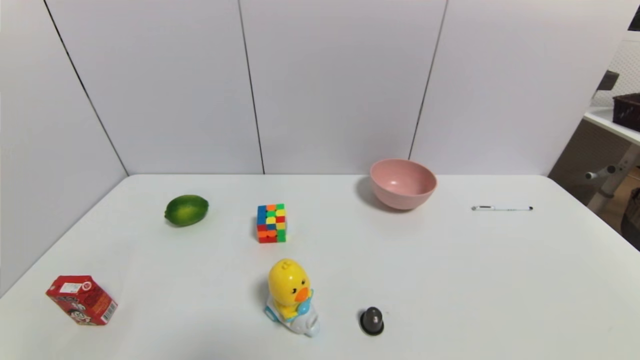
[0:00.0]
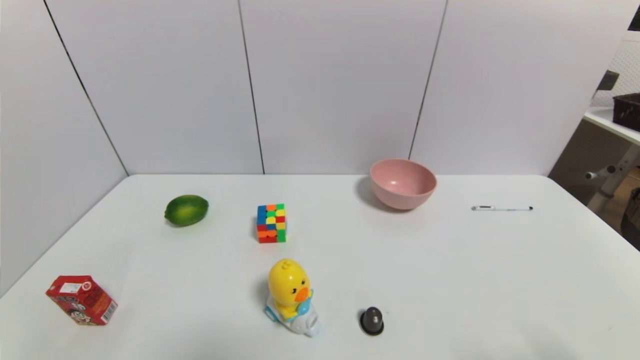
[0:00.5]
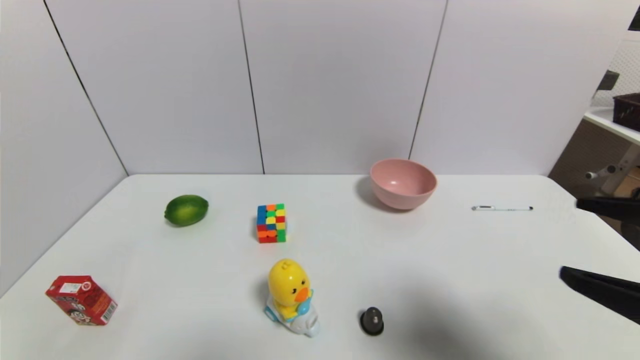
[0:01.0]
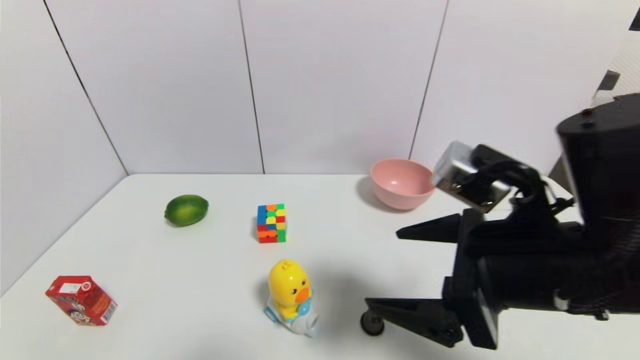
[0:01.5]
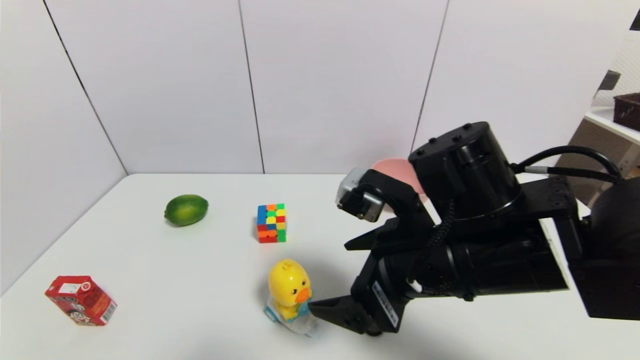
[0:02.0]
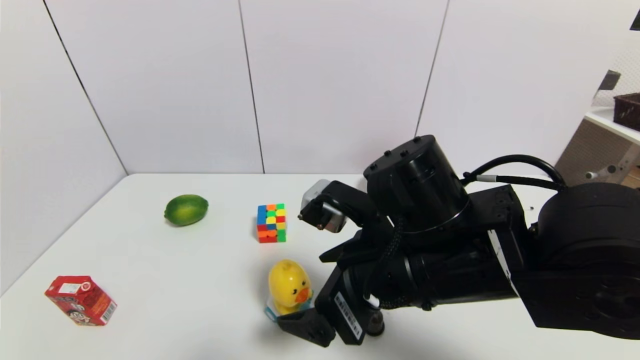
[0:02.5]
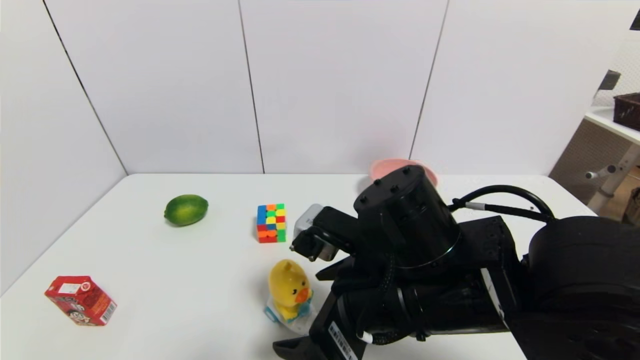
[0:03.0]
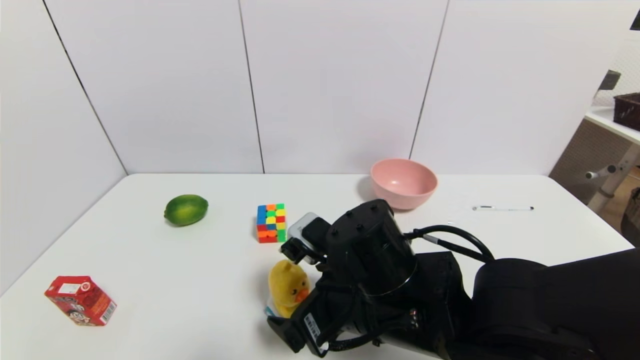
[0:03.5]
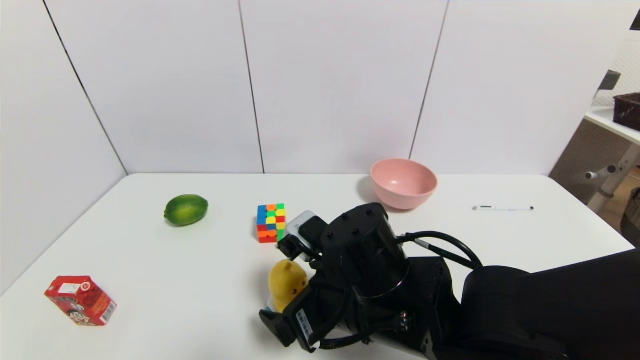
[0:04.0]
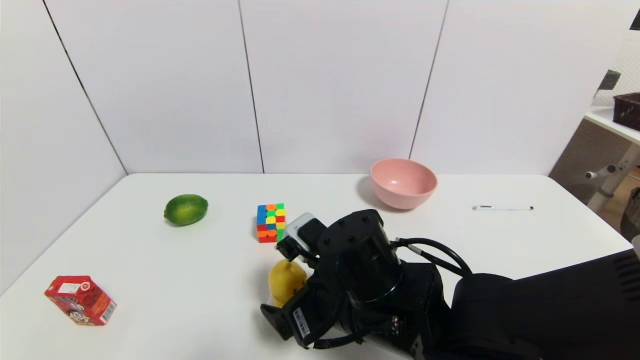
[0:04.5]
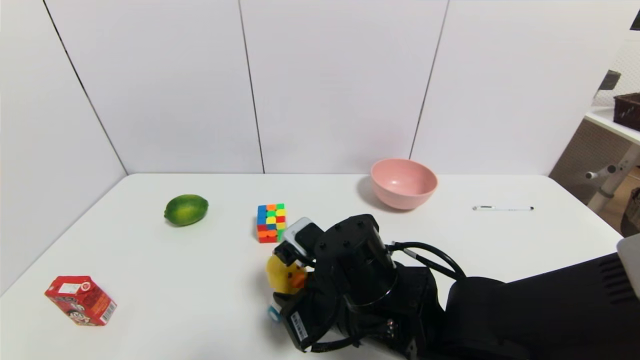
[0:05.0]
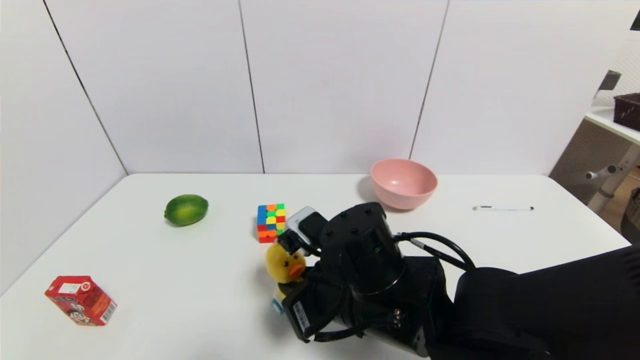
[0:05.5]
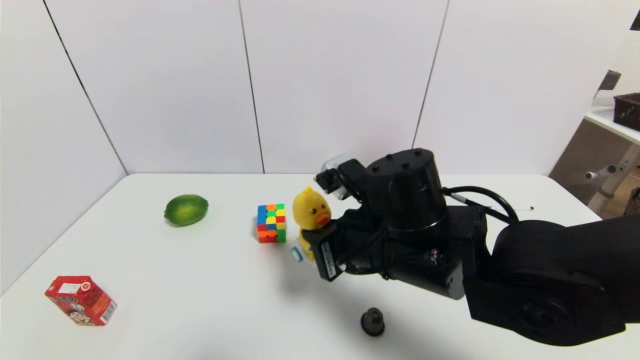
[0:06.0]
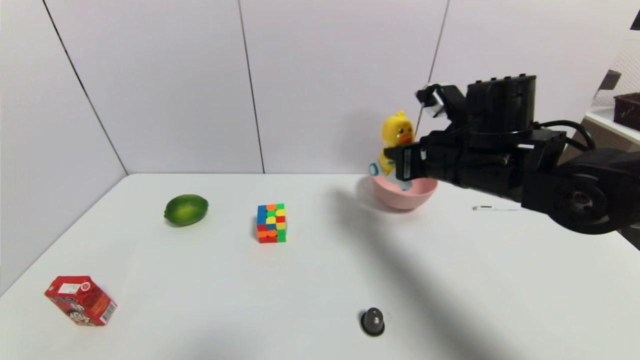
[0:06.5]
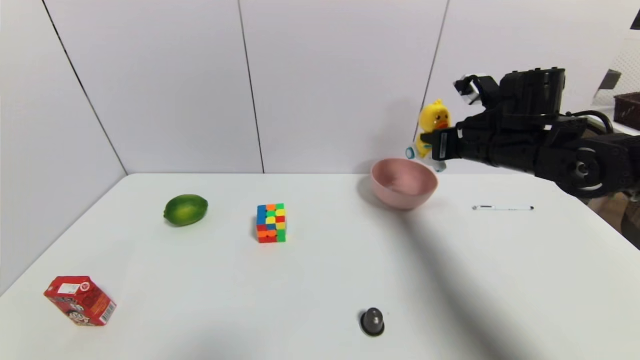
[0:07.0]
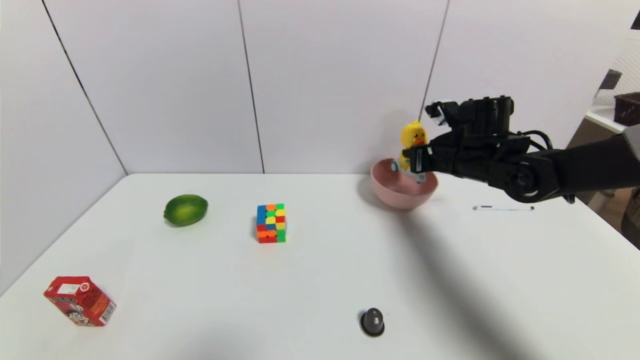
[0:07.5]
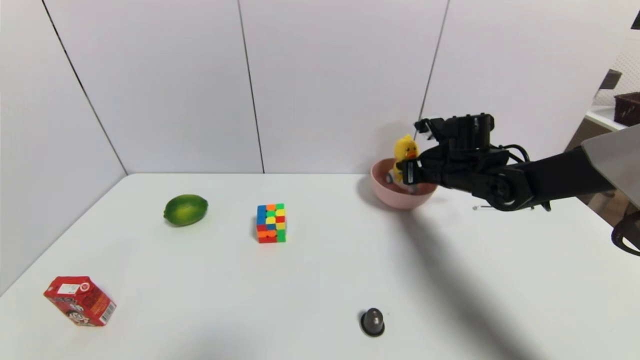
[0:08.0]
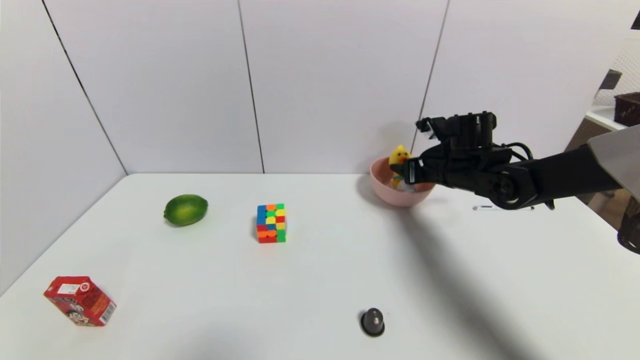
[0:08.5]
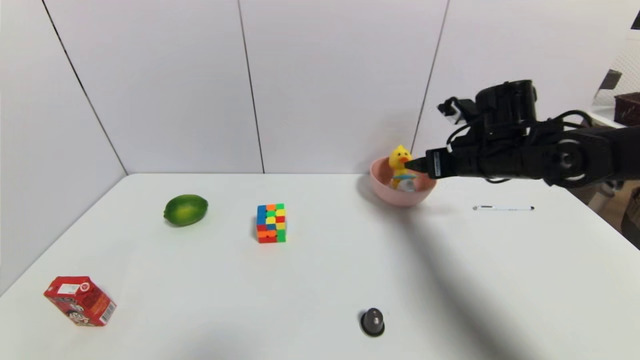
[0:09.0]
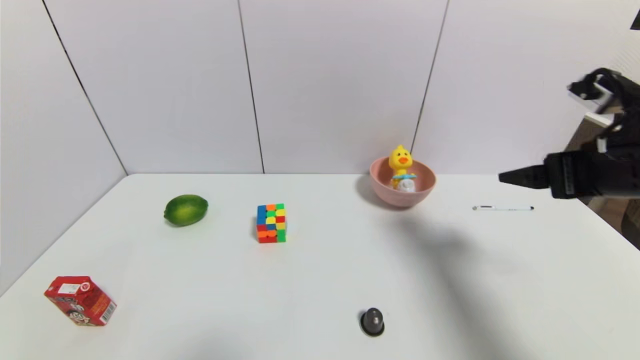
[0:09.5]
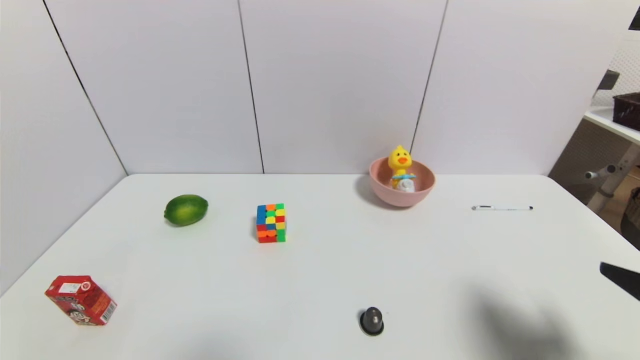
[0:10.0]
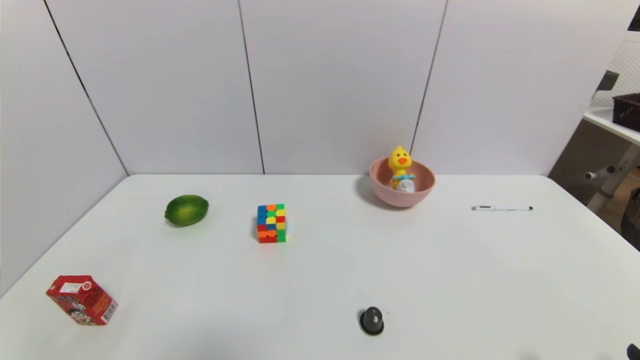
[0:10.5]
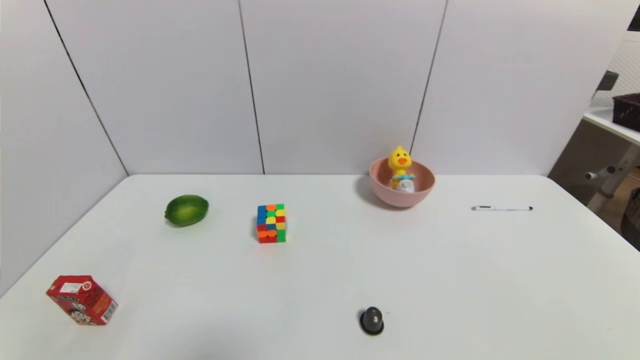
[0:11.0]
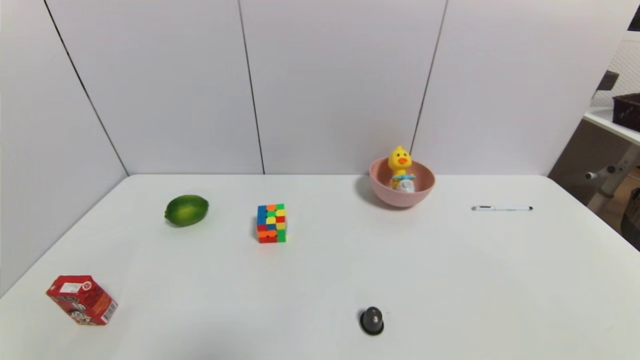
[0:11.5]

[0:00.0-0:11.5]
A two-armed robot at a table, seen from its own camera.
Task of the whole recording: use a gripper to pick the target object and place on the pink bowl.
Step, 0:00.0 to 0:05.0: Grasp the duck toy with the right gripper.
Step, 0:05.5 to 0:09.0: Place the duck toy on the pink bowl with the right gripper.
0:00.0 to 0:02.0: The right gripper shifts approximately 35 cm to the left, forward and upward.
0:02.0 to 0:04.0: The right gripper shifts approximately 10 cm downward and to the left.
0:04.0 to 0:06.0: The right gripper changes place by about 5 cm, and closes up.
0:06.0 to 0:07.5: The right gripper heads forward and to the right, covering some 25 cm.
0:07.5 to 0:09.5: The right gripper goes roughly 20 cm backward and upward, and opens up.
0:09.5 to 0:11.5: The right gripper travels backward and downward by roughly 30 cm.
